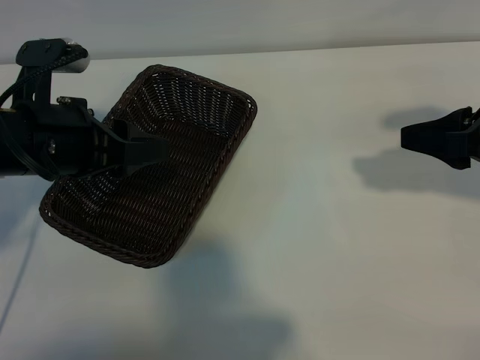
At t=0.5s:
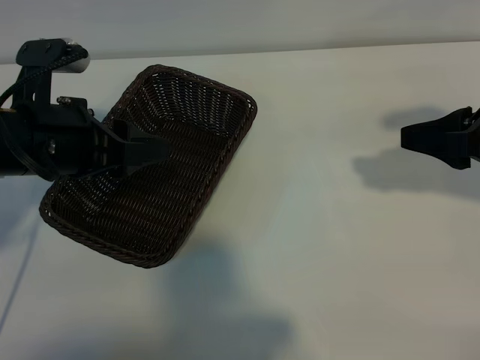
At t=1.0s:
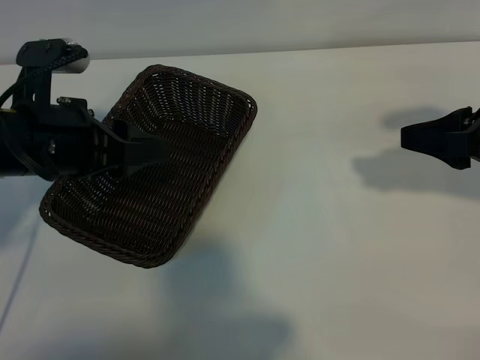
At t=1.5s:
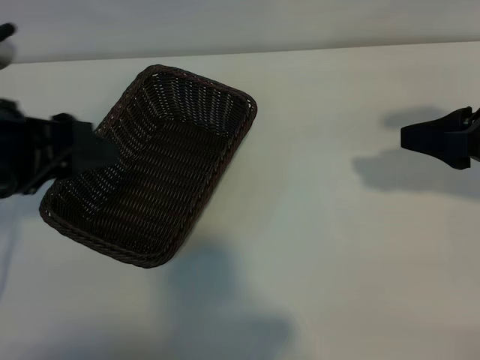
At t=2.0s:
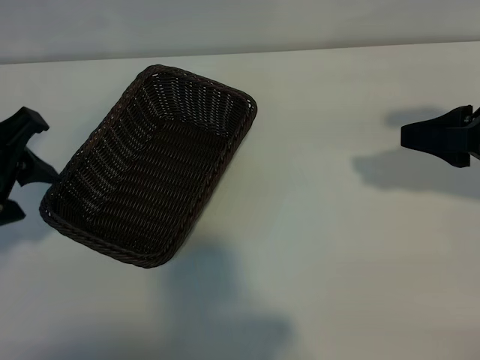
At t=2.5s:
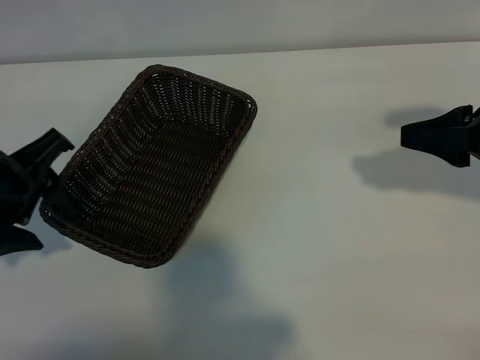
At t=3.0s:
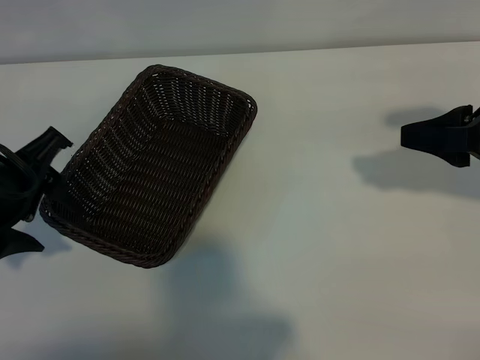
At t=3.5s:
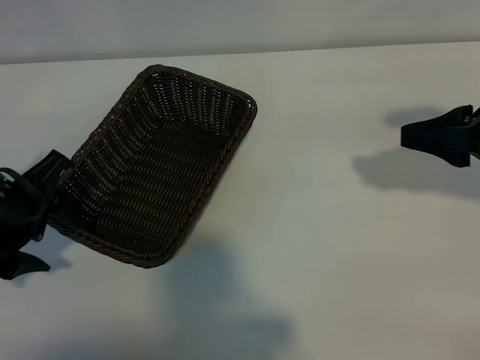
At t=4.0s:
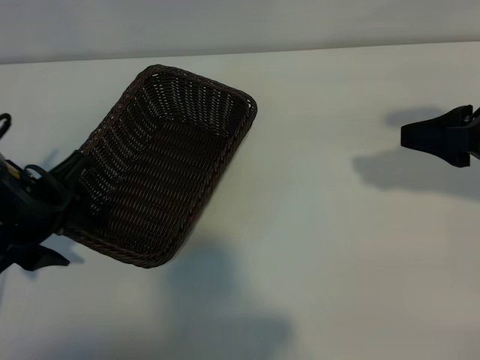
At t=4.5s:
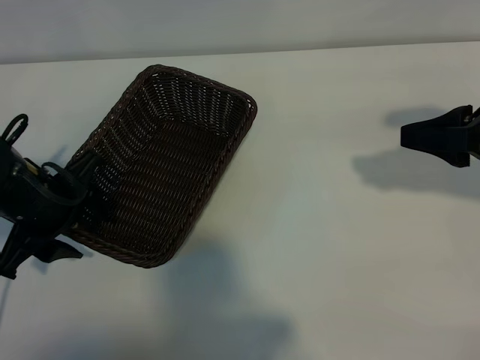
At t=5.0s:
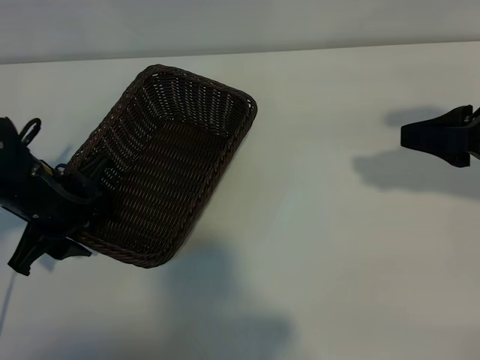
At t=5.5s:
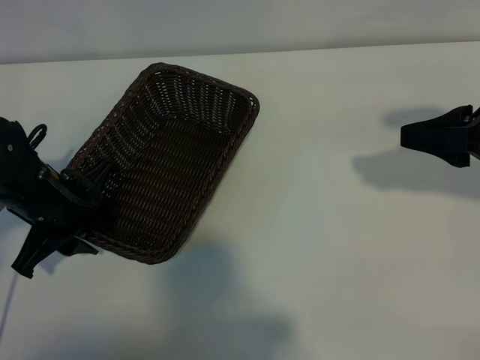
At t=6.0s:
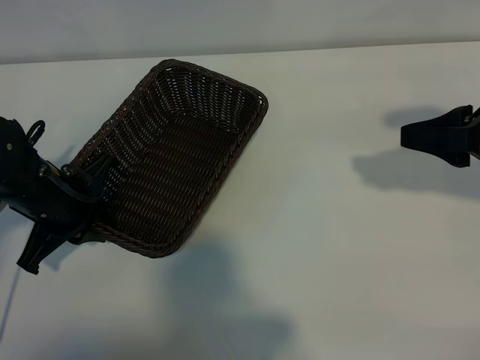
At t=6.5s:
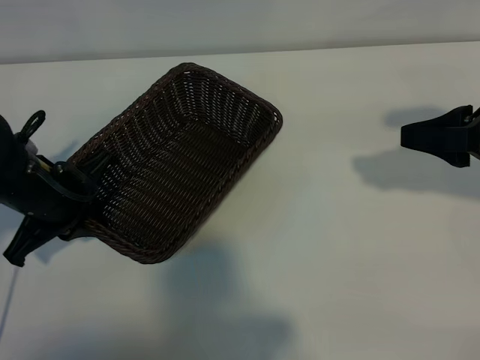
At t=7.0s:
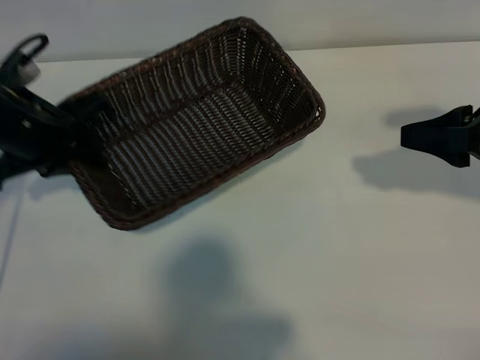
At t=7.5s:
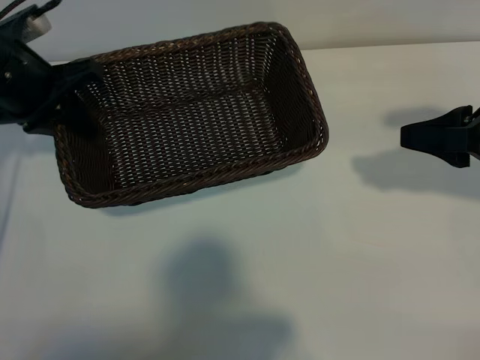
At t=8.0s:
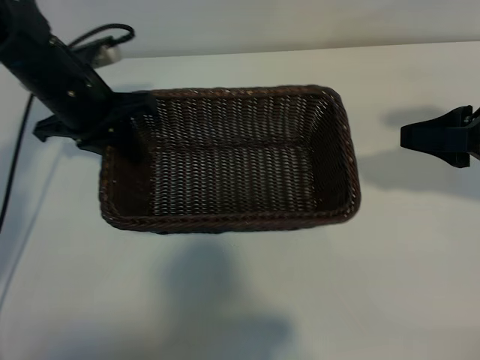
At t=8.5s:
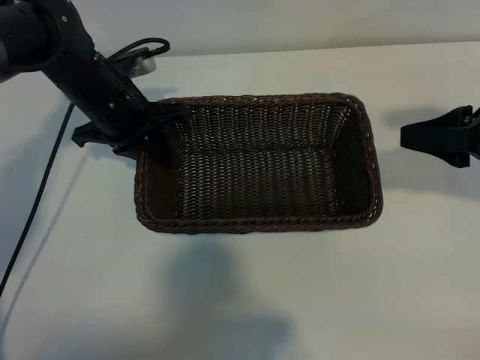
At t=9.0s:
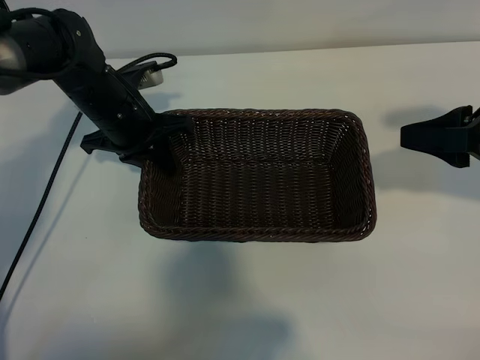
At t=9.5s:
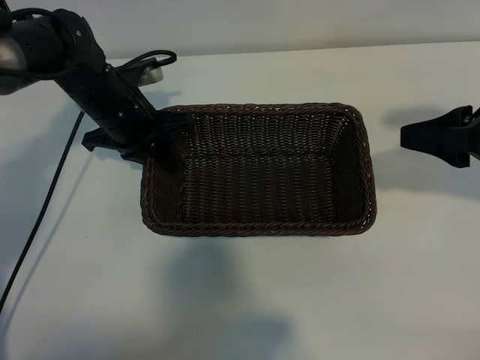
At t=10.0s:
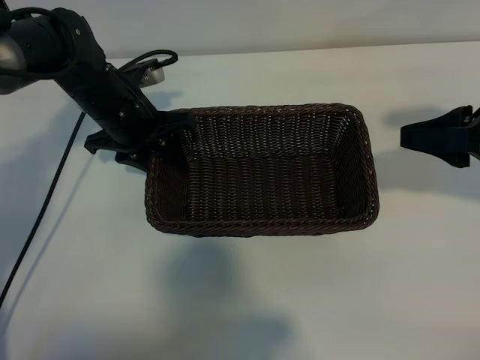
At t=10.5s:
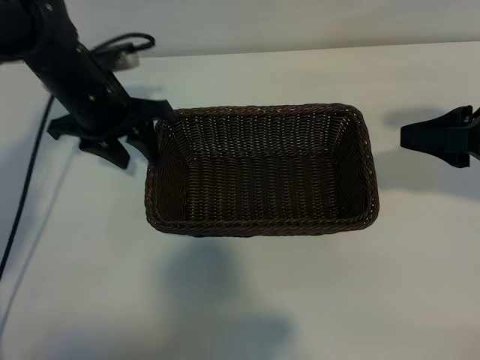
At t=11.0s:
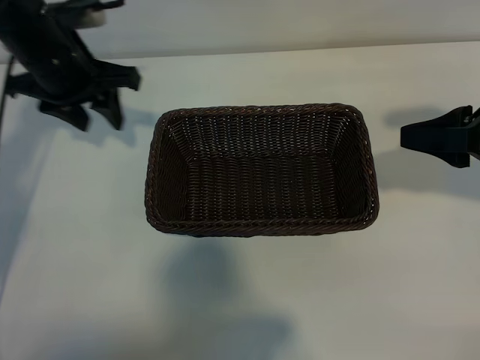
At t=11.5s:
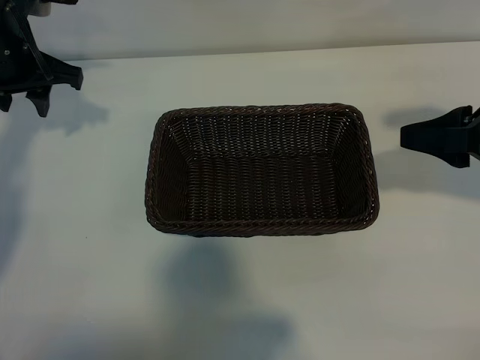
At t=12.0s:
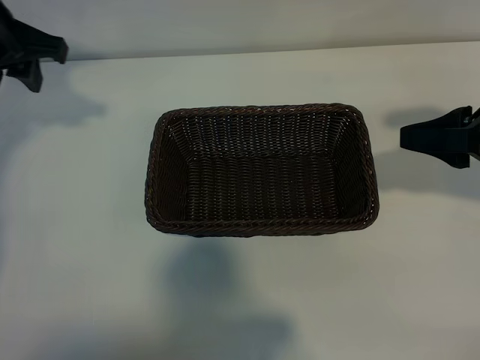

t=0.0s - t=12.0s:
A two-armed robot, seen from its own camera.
Task of the whole recording: pick up the banana and put it into the basket.
Step, t=1.0s - t=5.5s: Grasp the basket with the left gripper.
Step, t=6.0s - t=10.5s: Place the basket in the center of the table with the left gripper.

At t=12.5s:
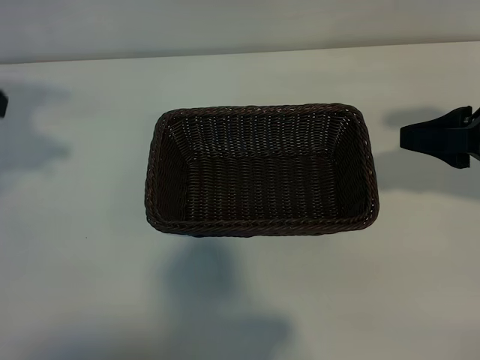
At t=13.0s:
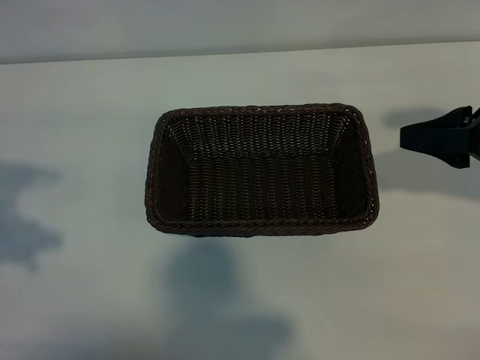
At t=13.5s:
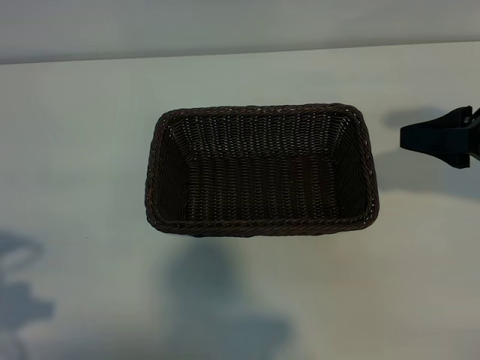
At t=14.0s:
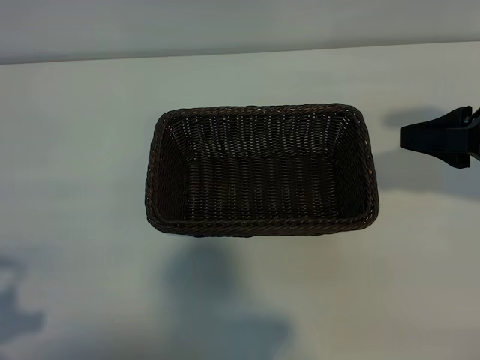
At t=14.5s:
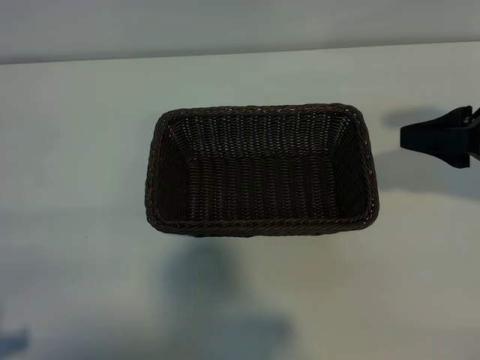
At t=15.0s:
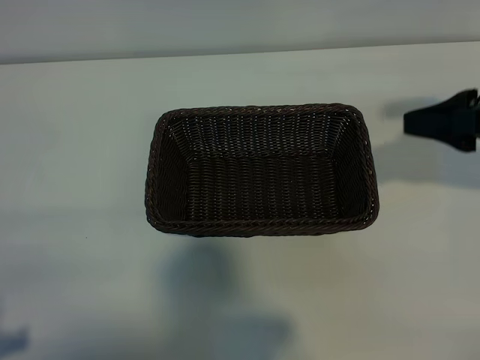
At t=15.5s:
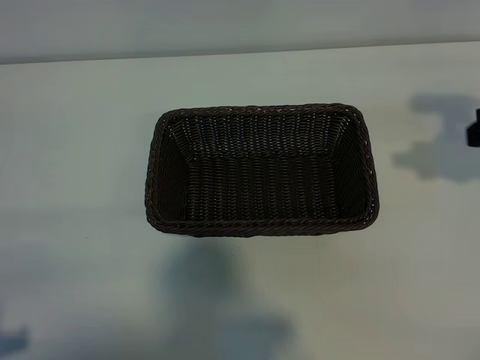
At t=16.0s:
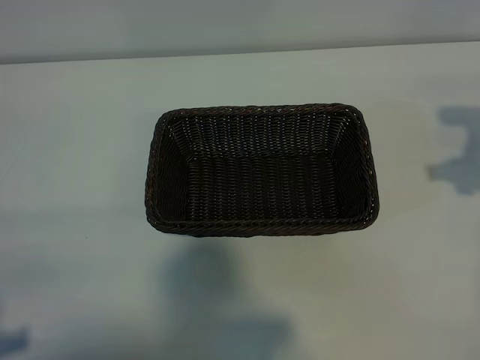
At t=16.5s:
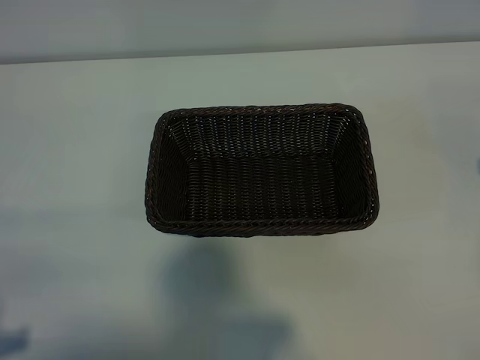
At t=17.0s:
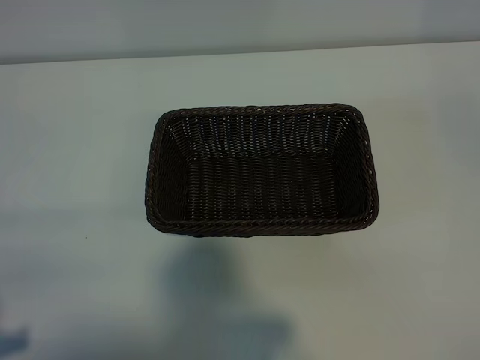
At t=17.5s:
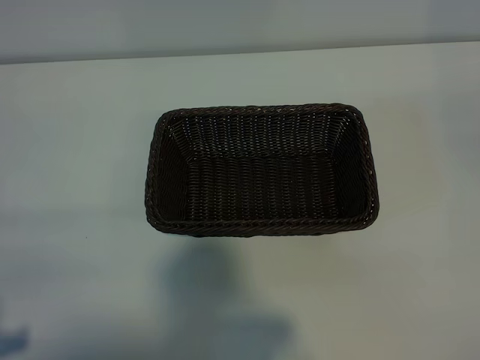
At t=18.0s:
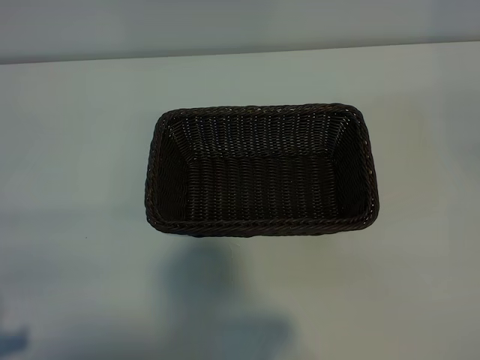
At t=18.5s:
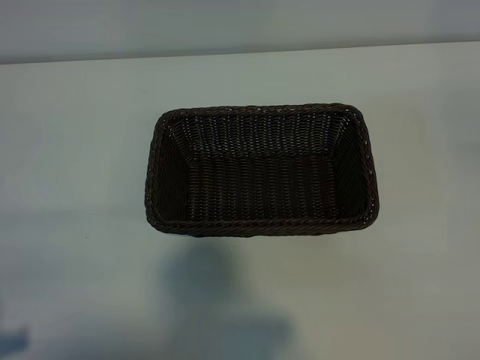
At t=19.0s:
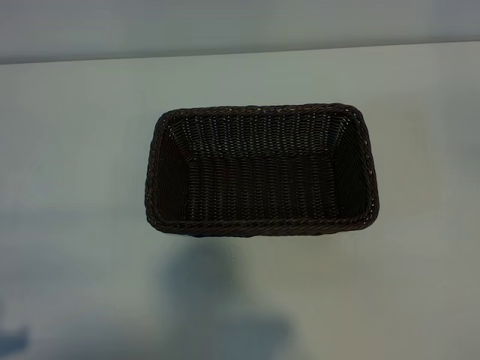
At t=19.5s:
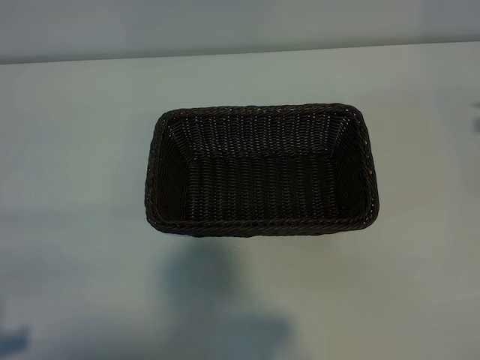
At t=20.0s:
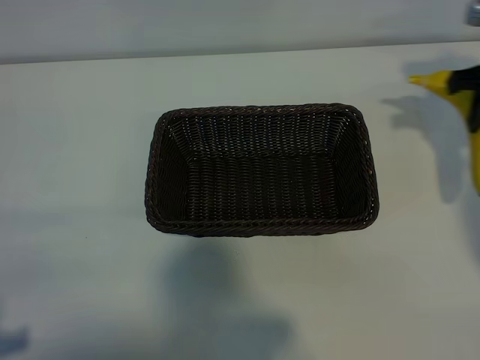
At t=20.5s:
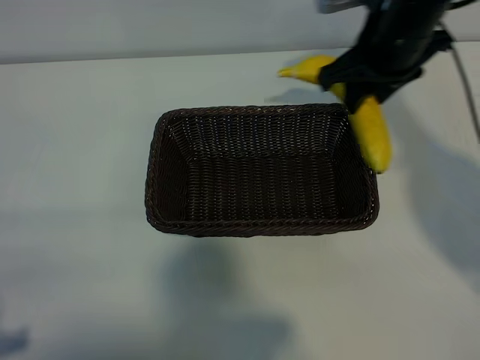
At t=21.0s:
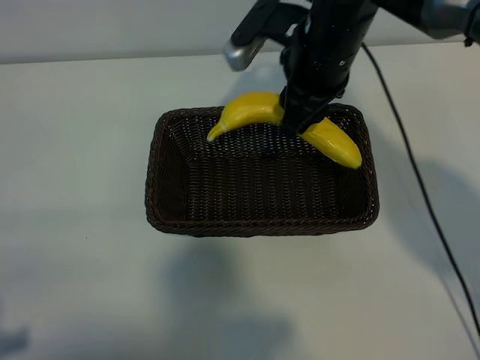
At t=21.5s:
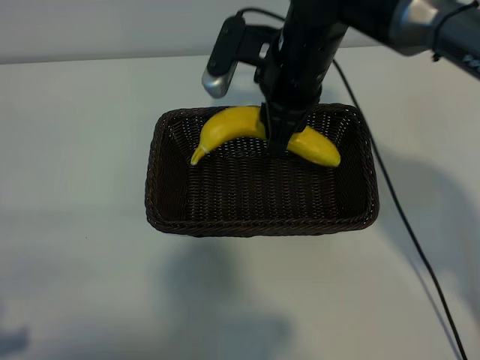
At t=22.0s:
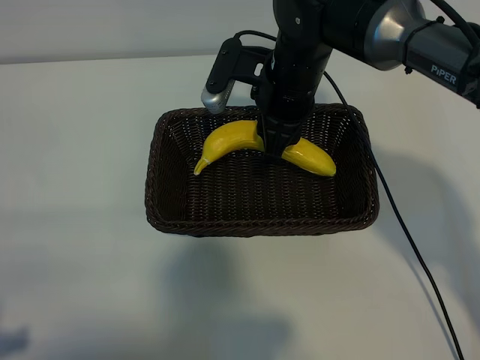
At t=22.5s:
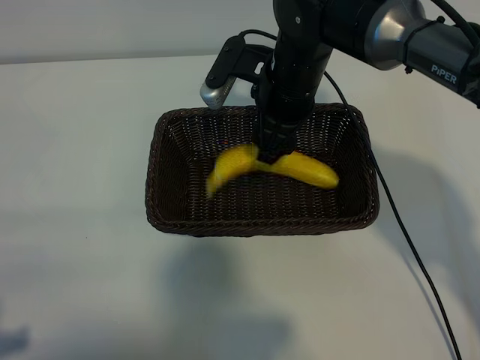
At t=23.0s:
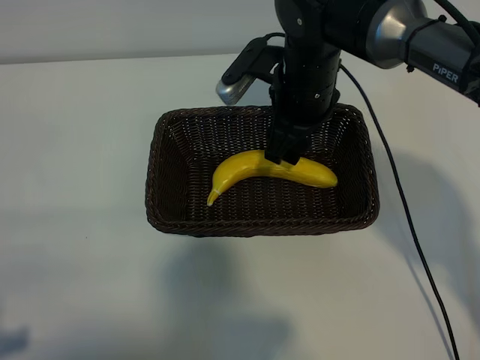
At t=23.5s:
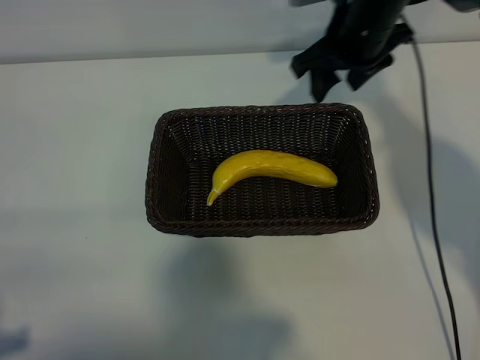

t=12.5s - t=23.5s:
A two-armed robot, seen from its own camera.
Task of the whole recording: pick up the banana and put it into the basket.
Step, t=12.5s - t=18.5s: Grasp the banana with right gripper.
Step, t=19.0s - t=23.0s: Place the banana in the basket with right gripper.
